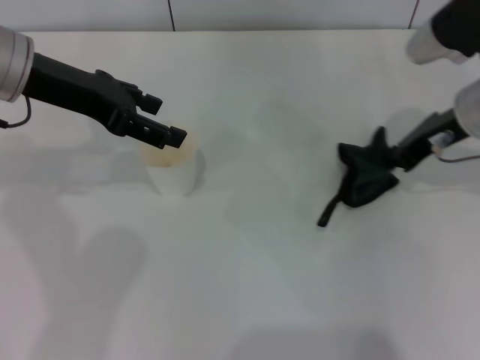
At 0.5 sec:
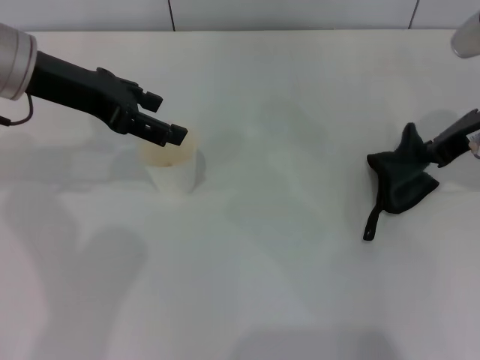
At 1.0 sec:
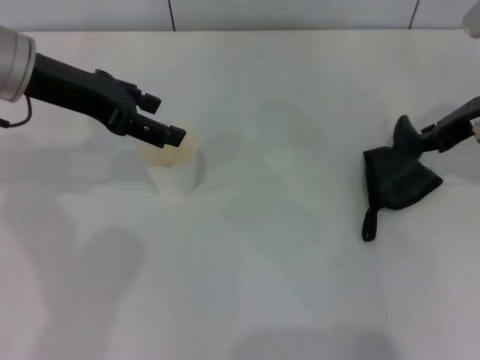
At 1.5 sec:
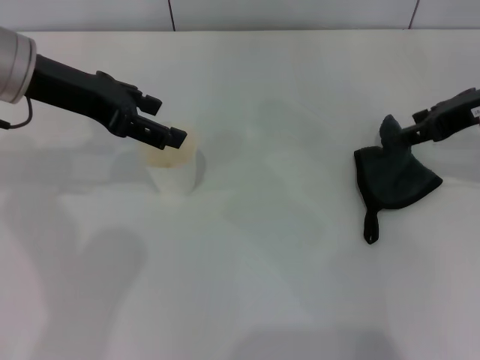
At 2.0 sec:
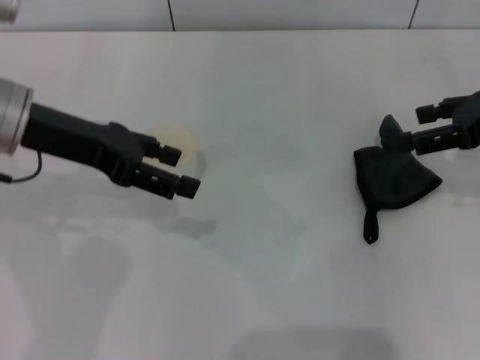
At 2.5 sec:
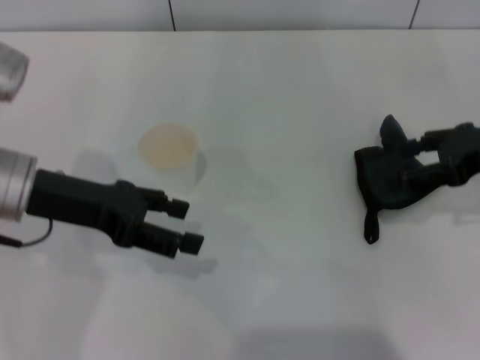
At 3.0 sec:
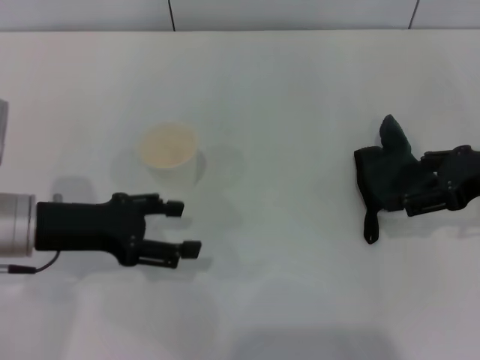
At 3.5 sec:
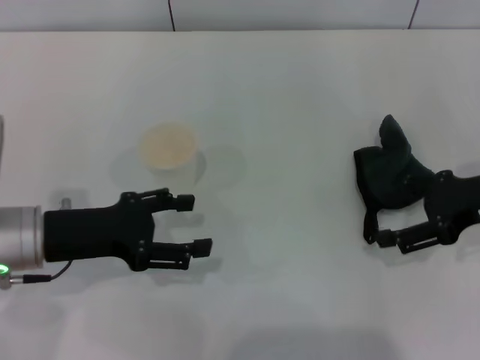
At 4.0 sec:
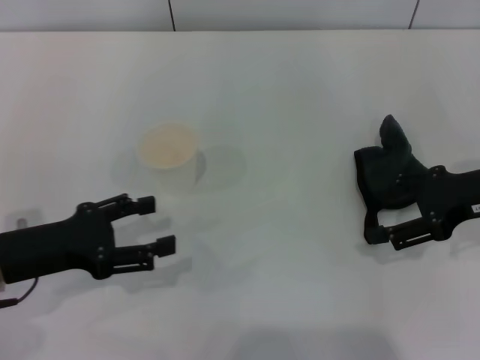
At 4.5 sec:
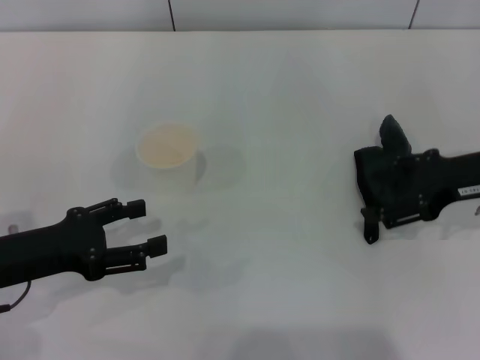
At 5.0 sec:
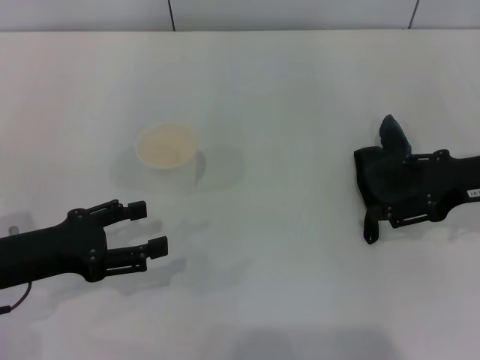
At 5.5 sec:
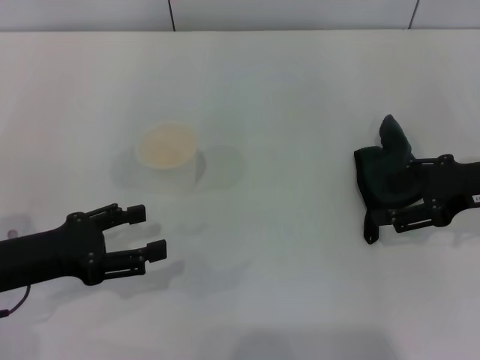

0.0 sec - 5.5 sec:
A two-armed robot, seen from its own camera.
Step, 0.0 sec - 1.0 sec: Place the rag on the table with the right gripper.
0.0 sec - 2.0 sec: The right gripper moves to the right, roughly 10 cm, and opens its fingers.
2.0 sec - 3.5 sec: The left gripper travels downward and backward by some 15 cm. Meanwhile the right gripper goes approximately 5 cm downward.
3.5 sec - 5.5 sec: The left gripper ends up roughly 5 cm from where it was.

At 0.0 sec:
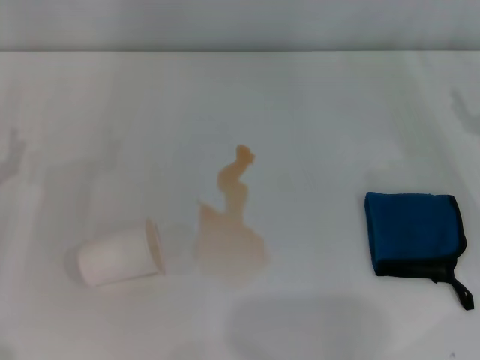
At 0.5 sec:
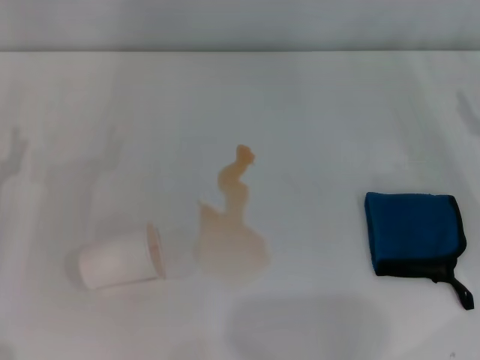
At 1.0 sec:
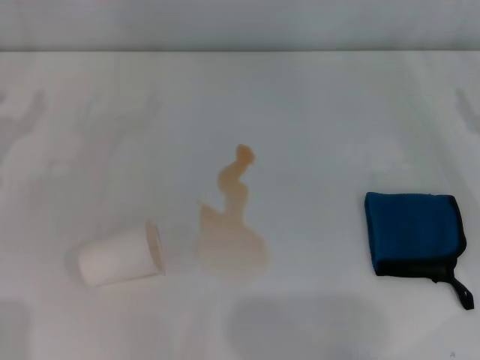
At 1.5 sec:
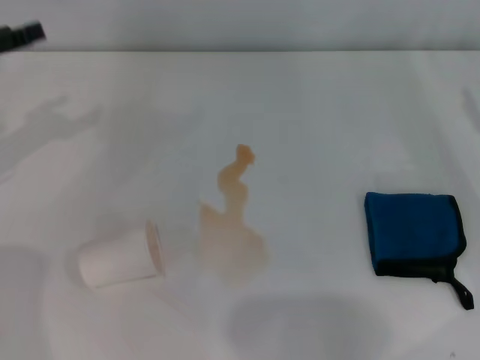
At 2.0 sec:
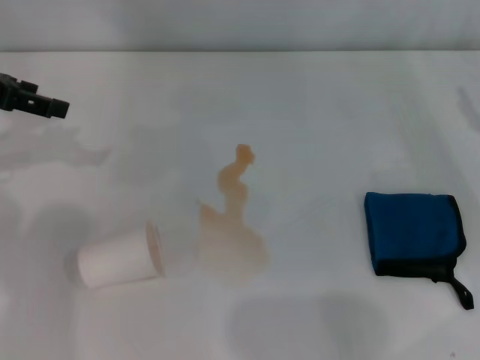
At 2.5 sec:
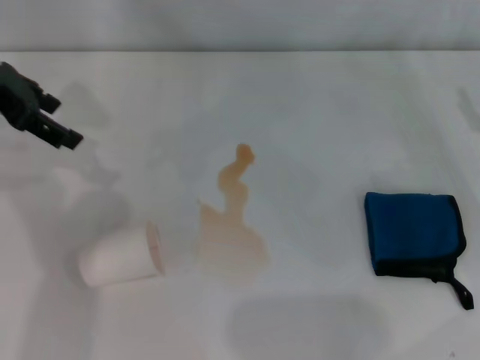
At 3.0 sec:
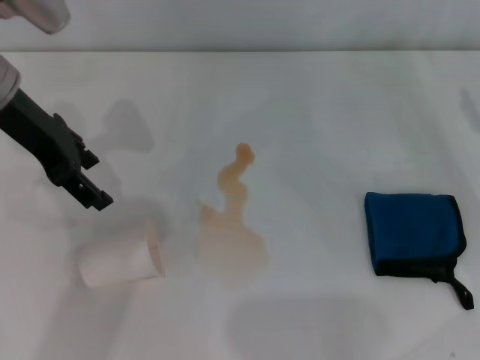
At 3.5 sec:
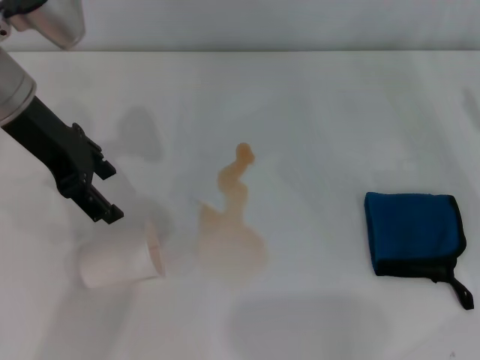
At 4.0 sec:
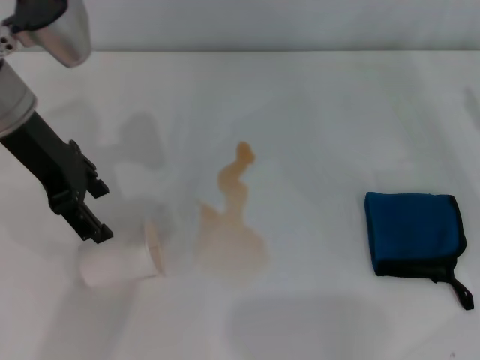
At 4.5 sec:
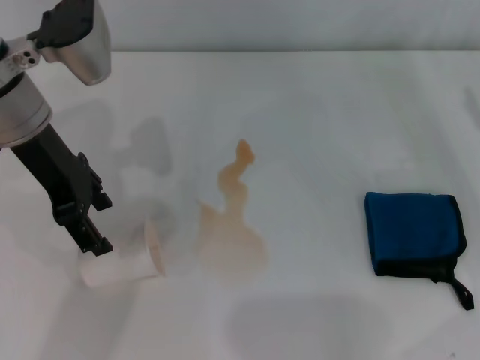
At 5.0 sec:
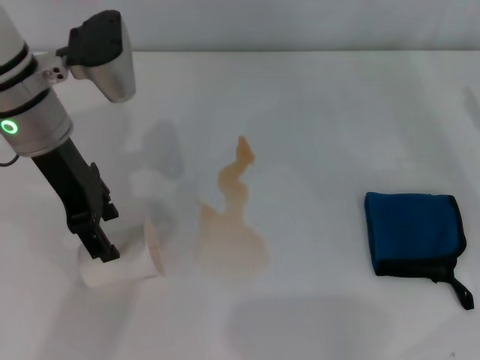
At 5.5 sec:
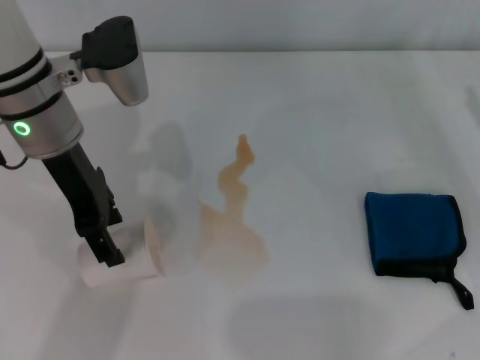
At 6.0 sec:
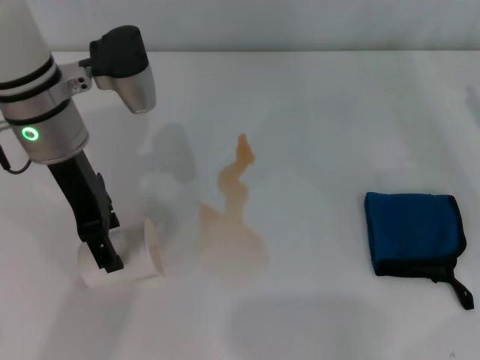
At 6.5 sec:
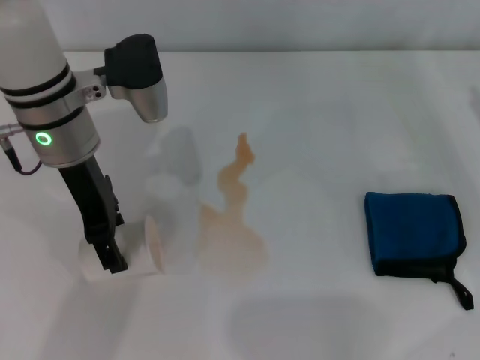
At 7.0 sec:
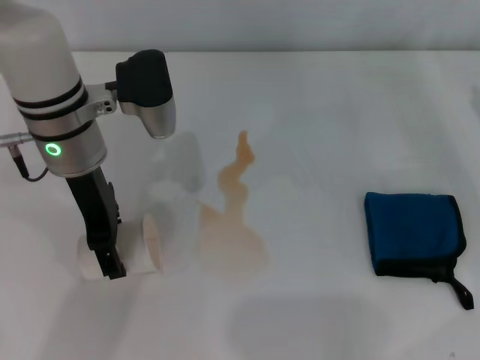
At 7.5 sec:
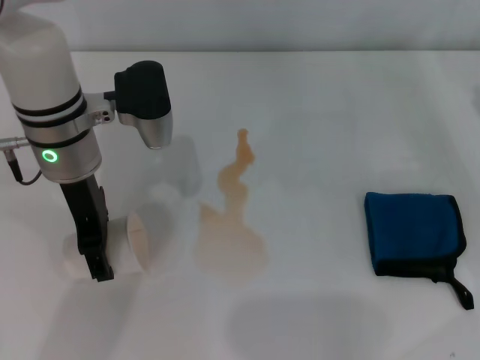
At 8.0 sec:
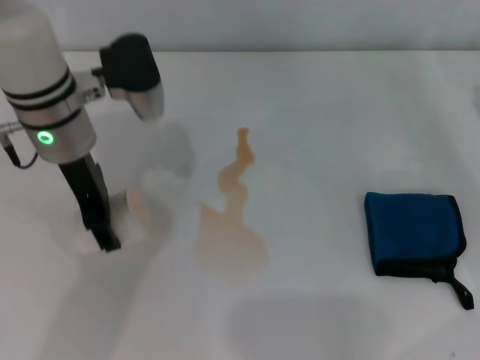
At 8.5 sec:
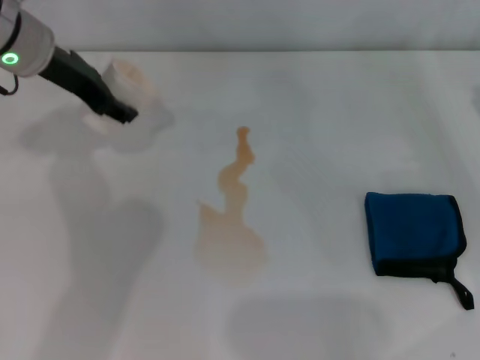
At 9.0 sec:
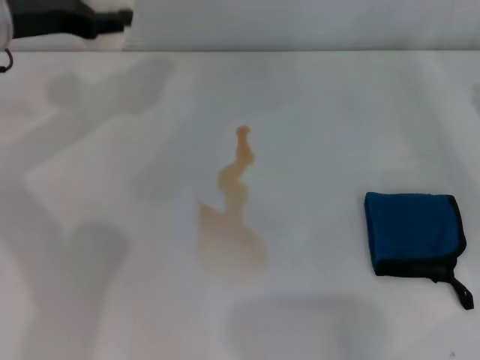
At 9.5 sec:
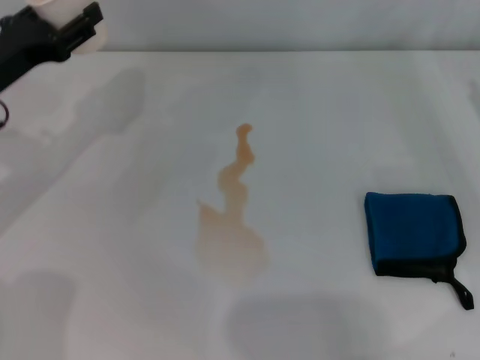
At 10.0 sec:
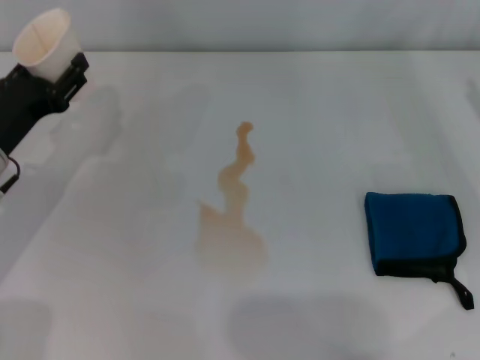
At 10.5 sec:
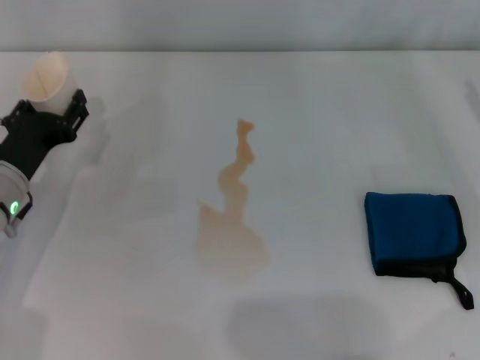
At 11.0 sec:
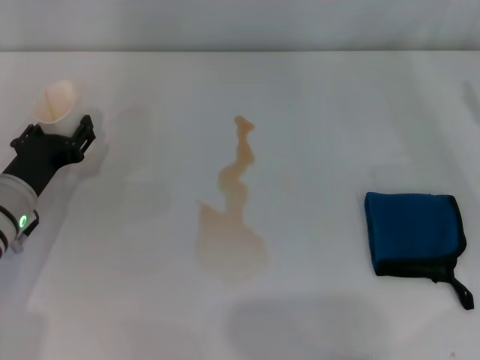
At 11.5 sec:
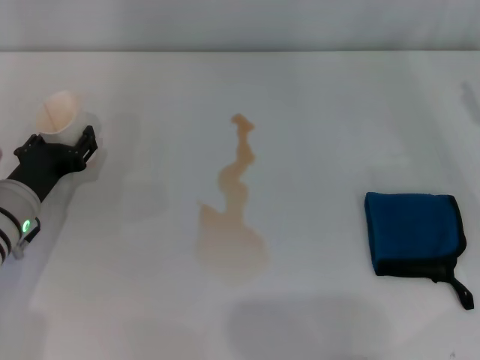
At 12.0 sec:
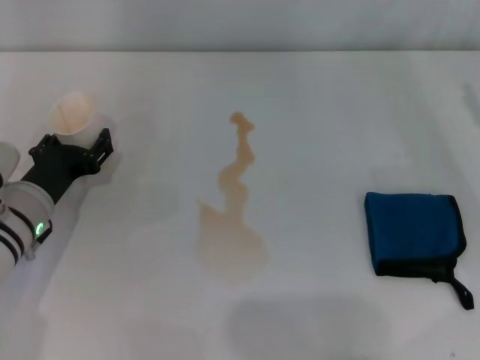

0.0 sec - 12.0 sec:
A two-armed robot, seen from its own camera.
Step, 0.0 sec - 7.5 sec: Grasp the paper cup with the left gripper.
0.0 sec - 2.0 sec: The left gripper heads upward and forward, covering roughly 20 cm.
2.0 sec - 4.0 sec: The left gripper travels to the right by some 10 cm.
4.0 sec - 6.0 sec: The left gripper ends up some 5 cm from where it was.
6.0 sec - 8.0 sec: The left gripper closes up.
8.0 sec - 10.0 sec: The left gripper is displaced to the left, downward and backward by about 15 cm.
10.0 sec - 12.0 sec: The left gripper is displaced downward by about 5 cm.

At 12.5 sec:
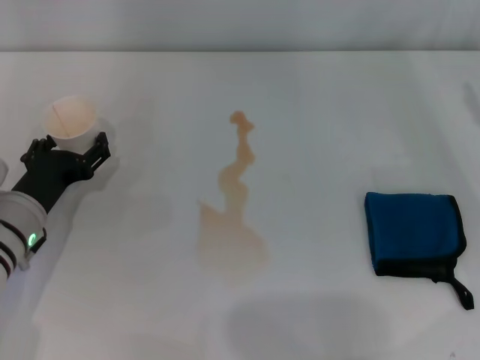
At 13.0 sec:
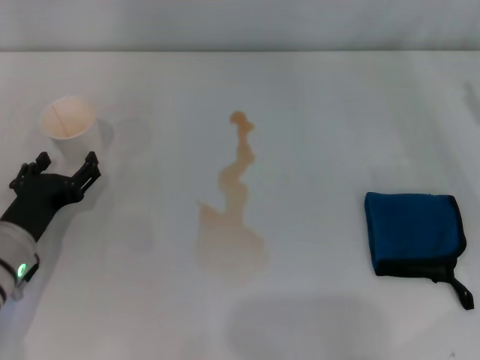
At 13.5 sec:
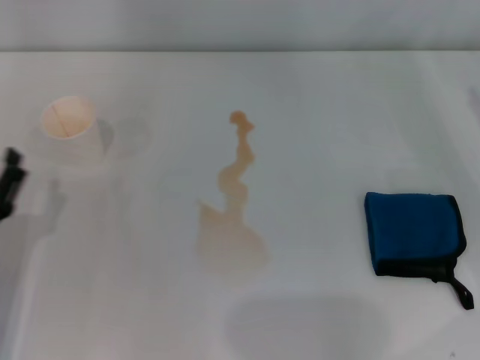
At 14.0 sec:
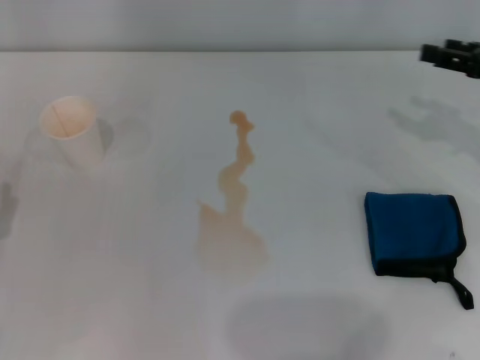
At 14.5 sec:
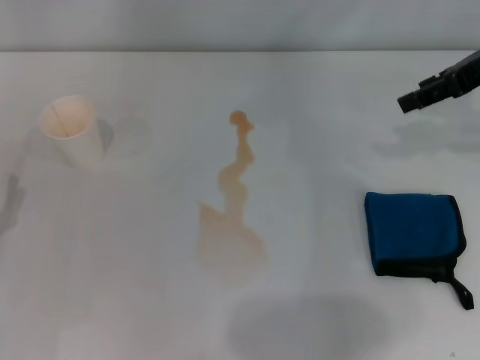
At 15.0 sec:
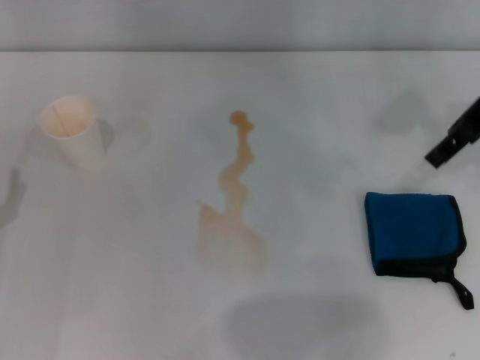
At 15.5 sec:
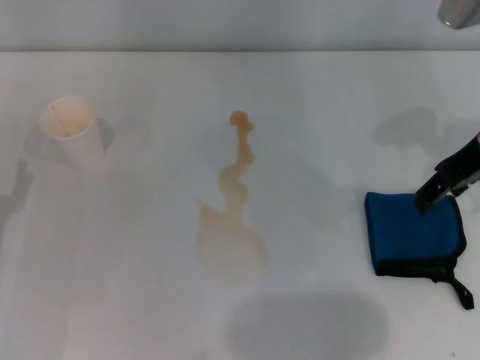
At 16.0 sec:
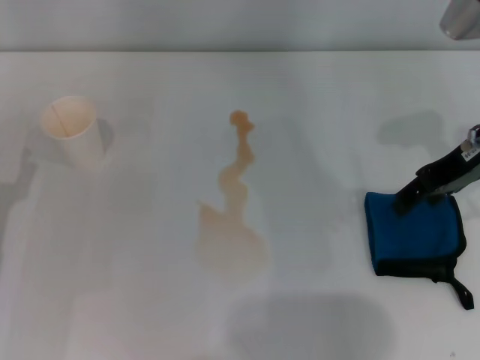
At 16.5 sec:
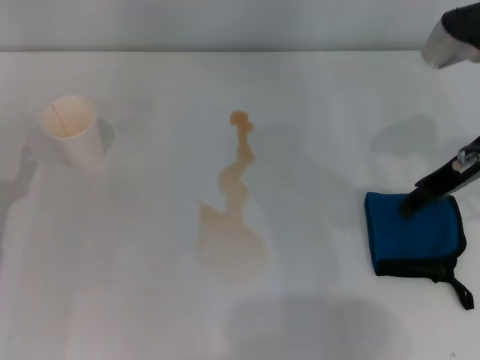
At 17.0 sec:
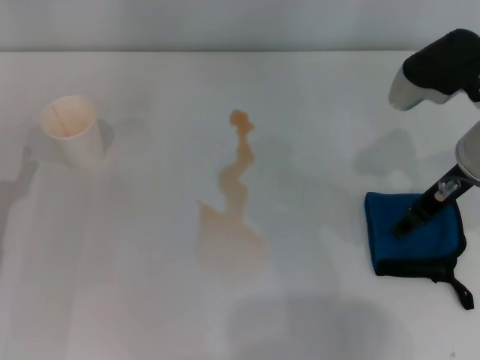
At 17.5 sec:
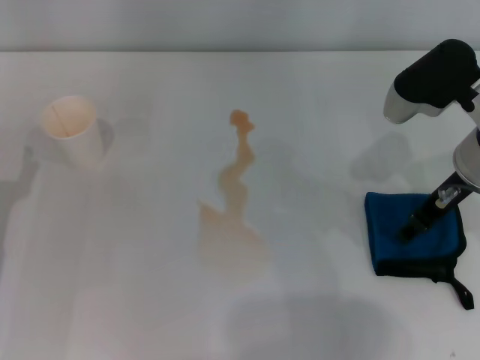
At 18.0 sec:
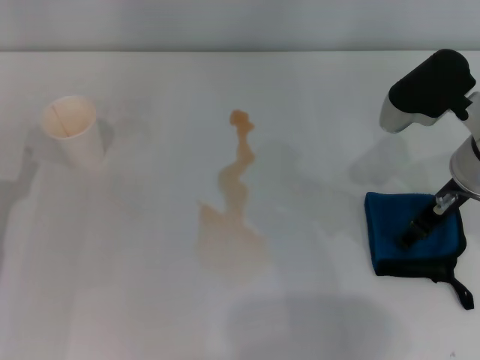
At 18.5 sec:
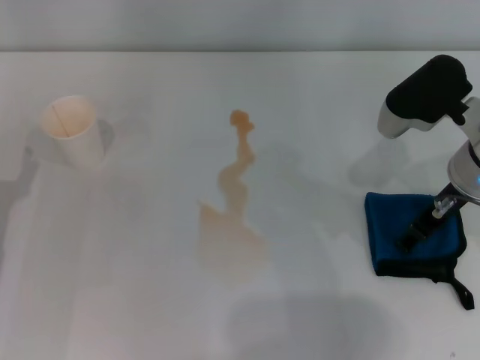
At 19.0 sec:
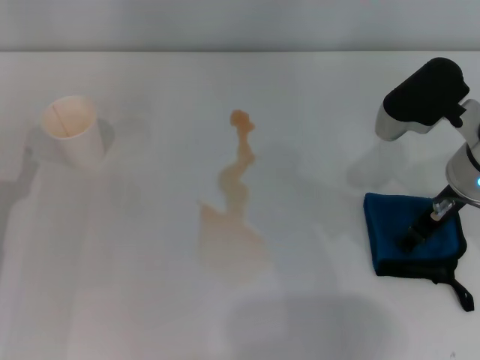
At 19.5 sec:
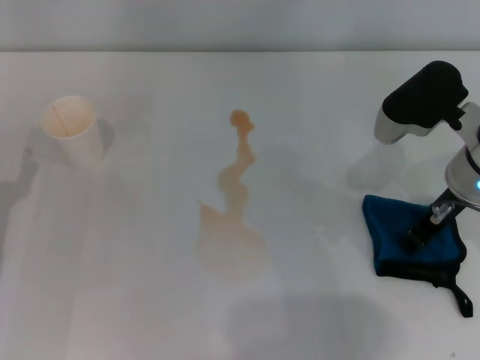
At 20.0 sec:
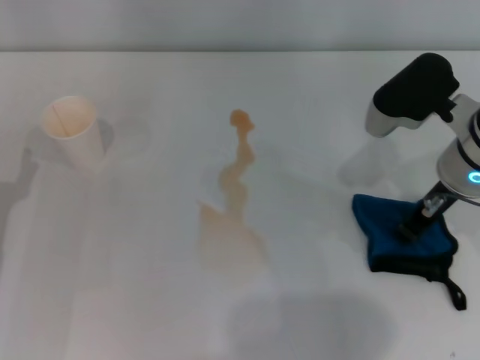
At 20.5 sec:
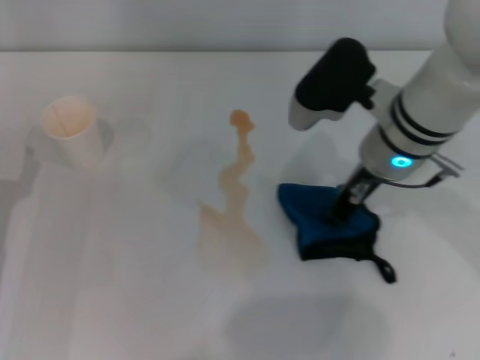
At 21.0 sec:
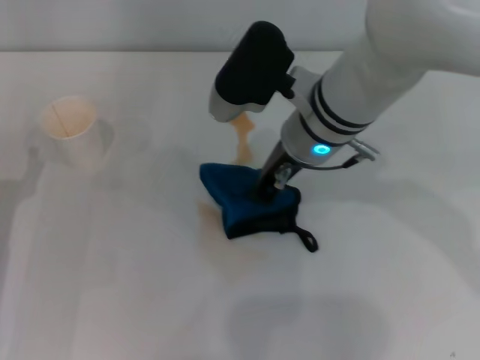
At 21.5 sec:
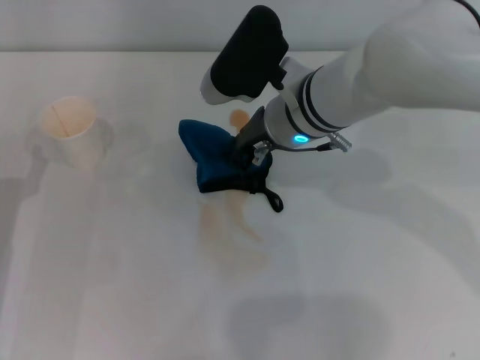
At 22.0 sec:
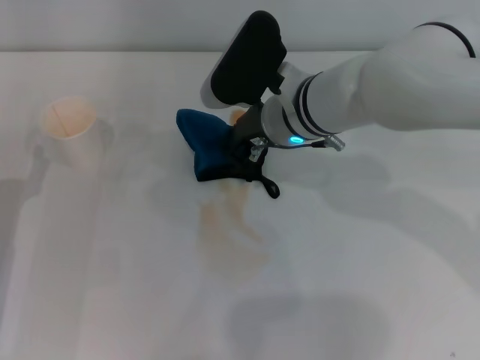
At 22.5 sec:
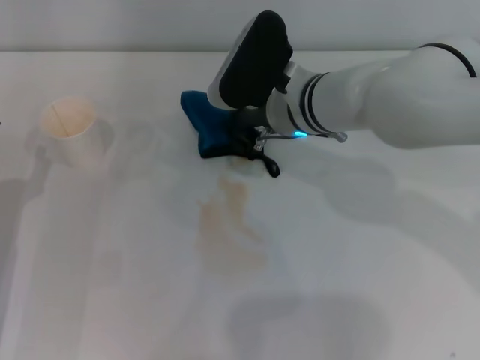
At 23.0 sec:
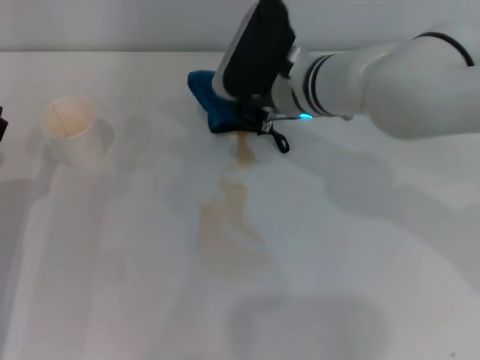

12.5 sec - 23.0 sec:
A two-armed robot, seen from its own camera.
Step, 12.5 sec - 19.5 sec: Grasp the rag with the right gripper.
12.5 sec - 14.5 sec: The left gripper travels backward and to the left by roughly 10 cm, while the right gripper shifts approximately 15 cm upward, forward and to the left.
14.5 sec - 16.5 sec: The right gripper goes about 10 cm to the left and downward.
16.5 sec - 19.0 sec: The right gripper moves approximately 5 cm.
19.0 sec - 21.0 sec: The right gripper travels to the left by some 15 cm, and closes its fingers.
21.0 sec - 23.0 sec: The right gripper ends up some 5 cm from where it was.
